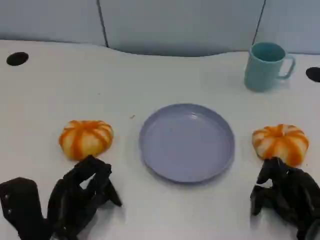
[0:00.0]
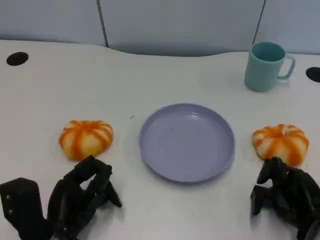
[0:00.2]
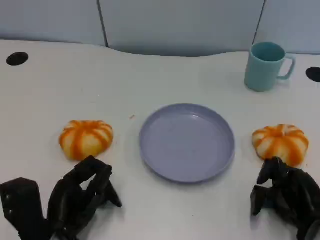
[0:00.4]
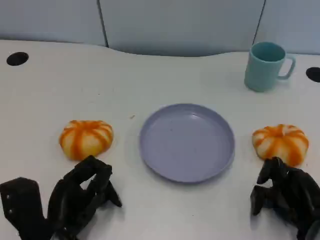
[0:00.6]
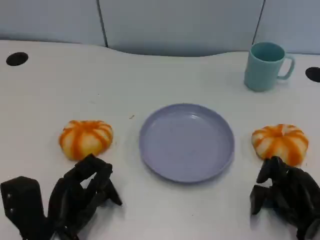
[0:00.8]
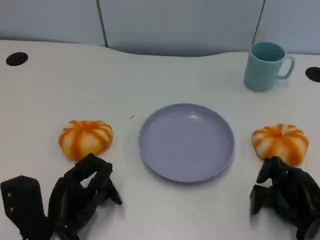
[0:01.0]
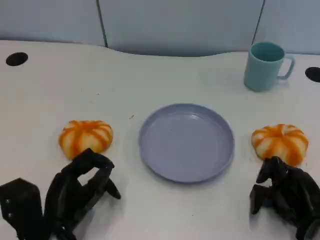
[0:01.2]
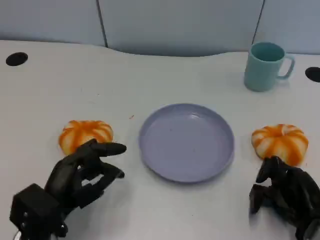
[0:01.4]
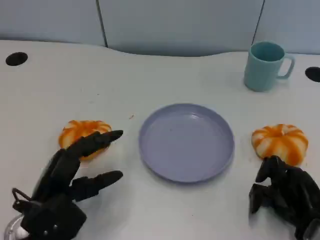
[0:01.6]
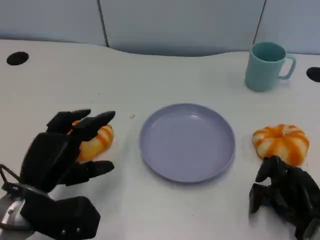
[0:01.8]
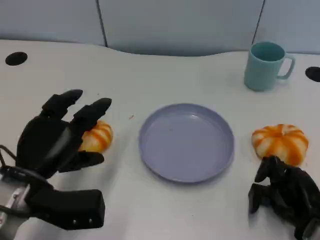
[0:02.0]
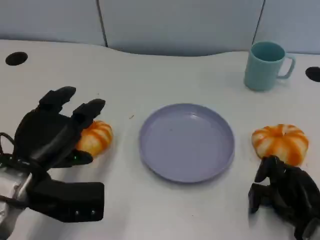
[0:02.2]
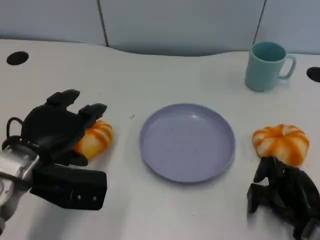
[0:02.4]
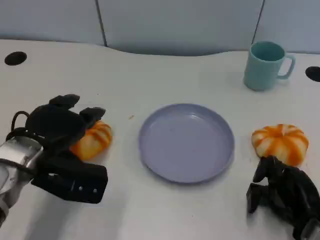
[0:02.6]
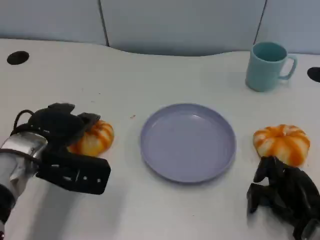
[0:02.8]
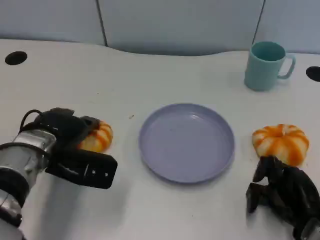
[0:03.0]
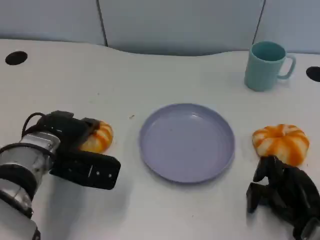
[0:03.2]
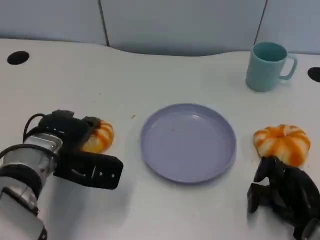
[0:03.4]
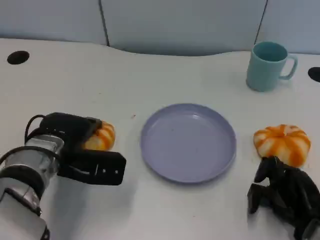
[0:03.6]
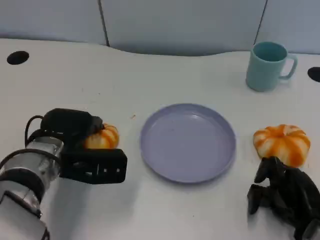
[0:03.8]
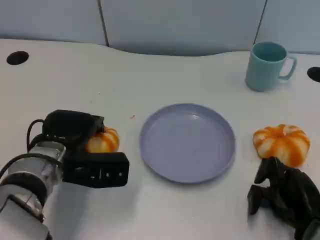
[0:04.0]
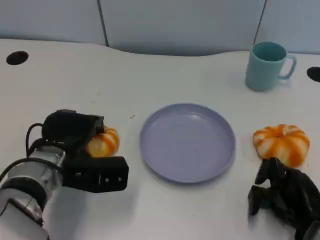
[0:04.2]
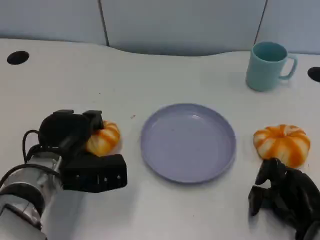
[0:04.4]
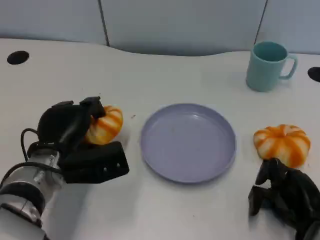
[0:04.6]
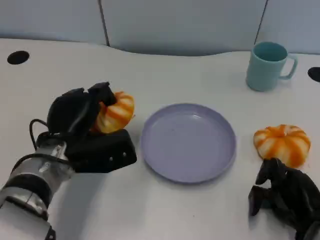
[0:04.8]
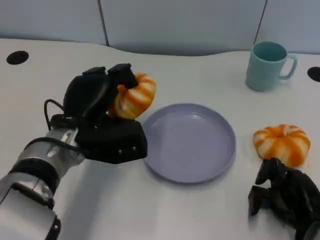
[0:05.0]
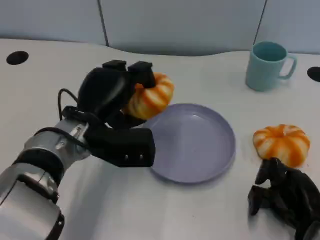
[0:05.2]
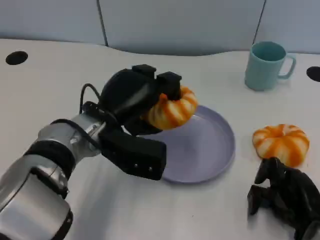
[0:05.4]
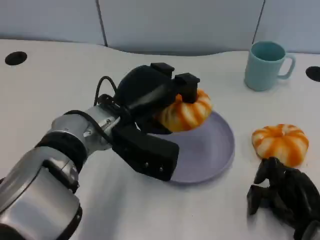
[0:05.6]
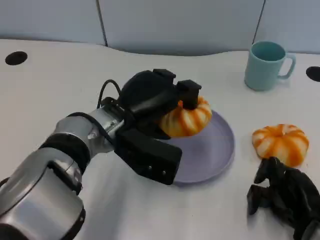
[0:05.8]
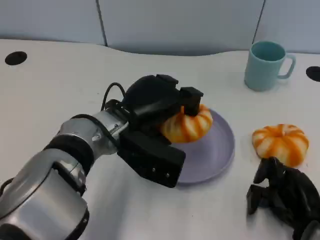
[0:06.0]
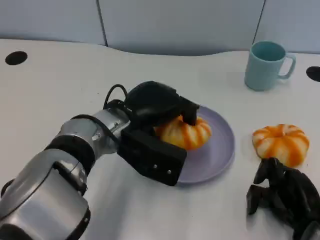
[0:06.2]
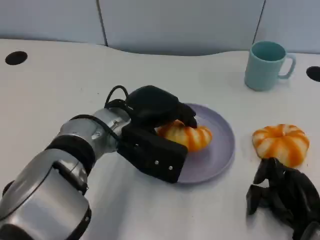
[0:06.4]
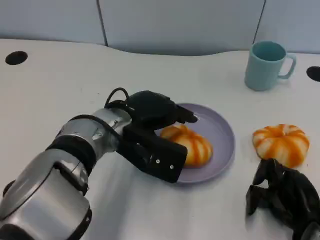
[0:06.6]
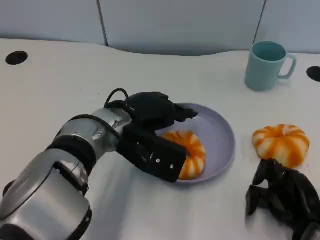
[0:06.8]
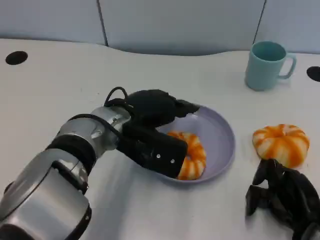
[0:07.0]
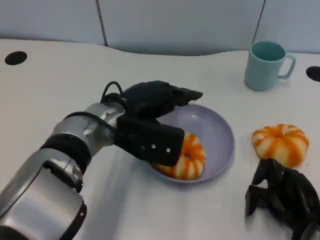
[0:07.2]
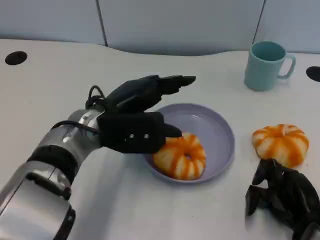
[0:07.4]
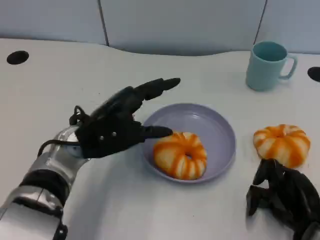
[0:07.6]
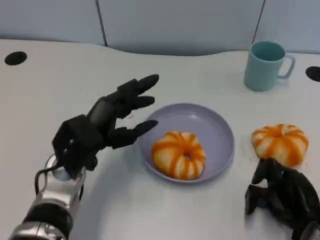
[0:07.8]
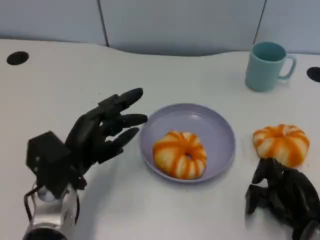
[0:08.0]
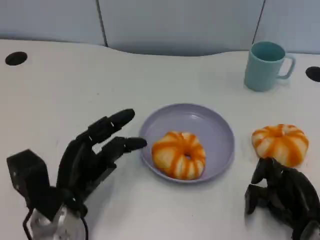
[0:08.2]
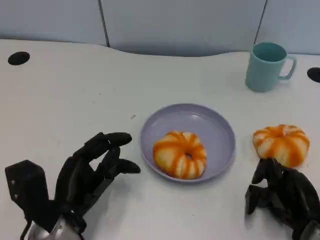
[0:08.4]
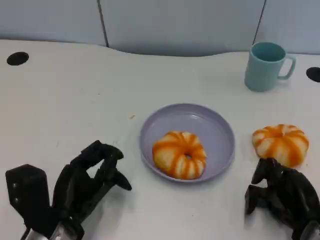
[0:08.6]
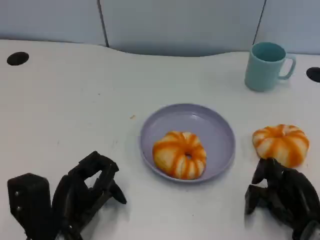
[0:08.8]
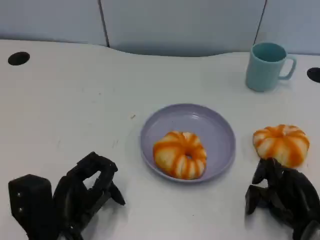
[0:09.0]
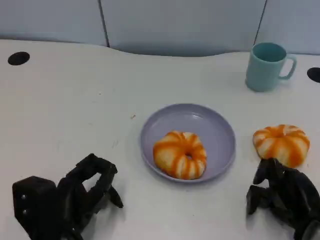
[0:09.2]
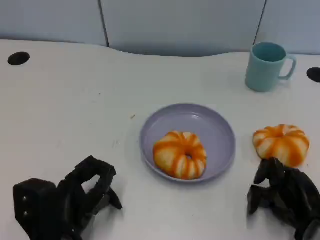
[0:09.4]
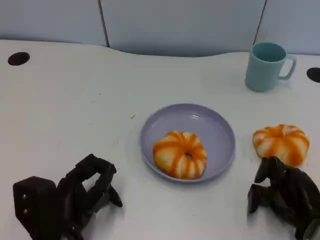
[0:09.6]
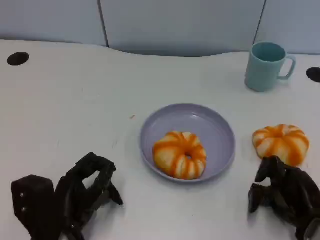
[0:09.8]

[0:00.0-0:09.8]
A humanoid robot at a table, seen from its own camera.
Task of the whole recording: Grasp the bread from the table and place it into the plate.
0:01.4 to 0:02.8: The left hand is displaced forward and upward by approximately 10 cm.
0:02.8 to 0:04.2: The hands stay close to where they were, moving slightly.
0:04.2 to 0:05.6: The left hand shifts roughly 10 cm to the right and upward.
0:07.0 to 0:08.4: The left hand travels backward, to the left and downward by approximately 15 cm.
0:08.4 to 0:09.8: The hands move only a little.

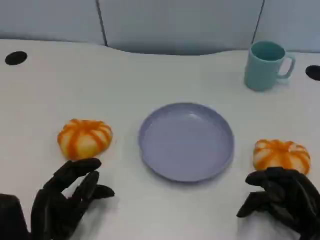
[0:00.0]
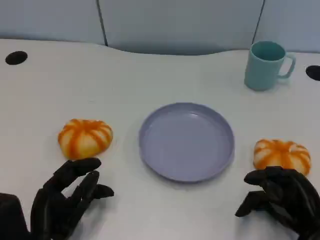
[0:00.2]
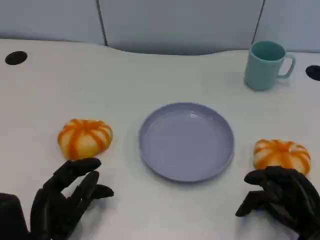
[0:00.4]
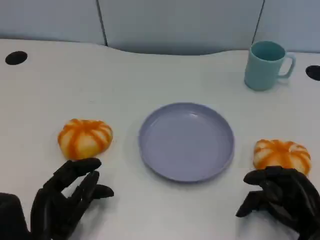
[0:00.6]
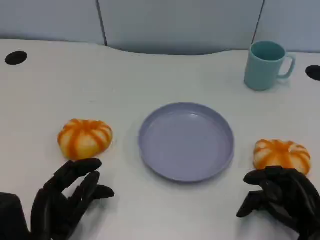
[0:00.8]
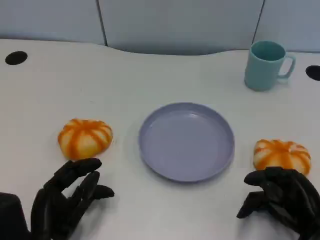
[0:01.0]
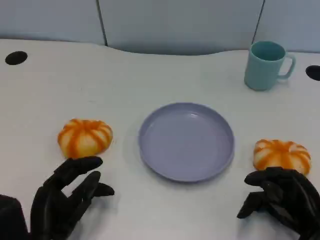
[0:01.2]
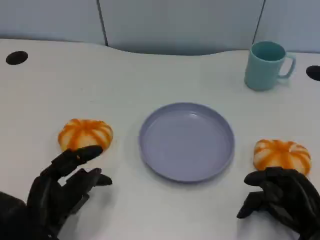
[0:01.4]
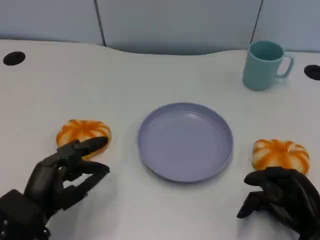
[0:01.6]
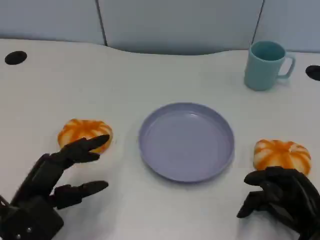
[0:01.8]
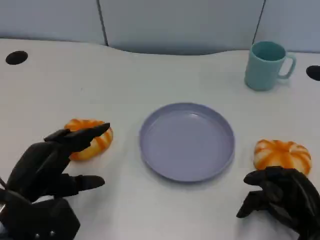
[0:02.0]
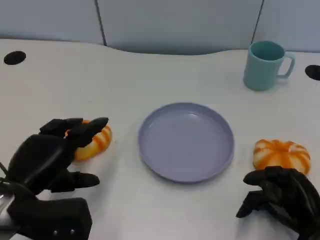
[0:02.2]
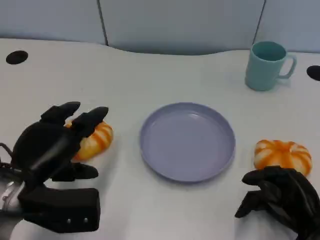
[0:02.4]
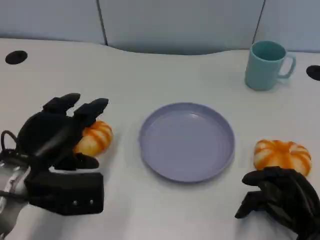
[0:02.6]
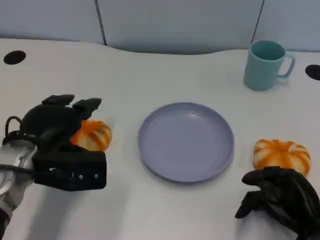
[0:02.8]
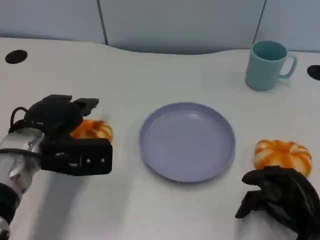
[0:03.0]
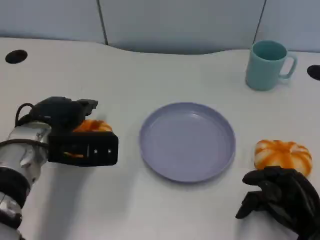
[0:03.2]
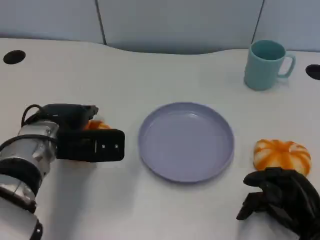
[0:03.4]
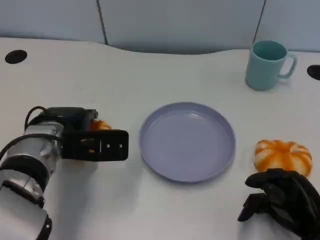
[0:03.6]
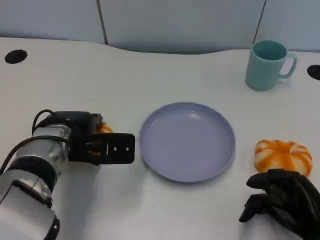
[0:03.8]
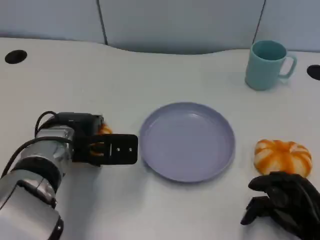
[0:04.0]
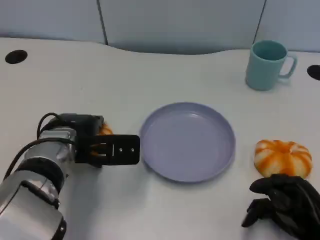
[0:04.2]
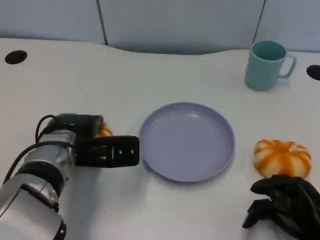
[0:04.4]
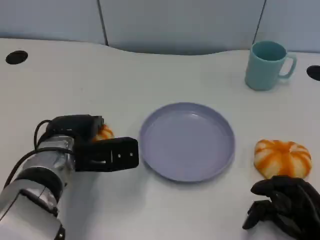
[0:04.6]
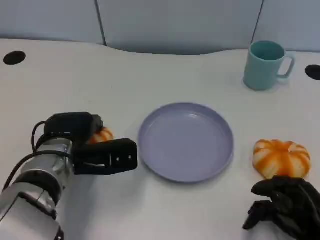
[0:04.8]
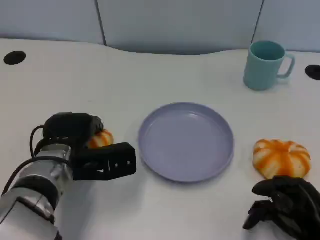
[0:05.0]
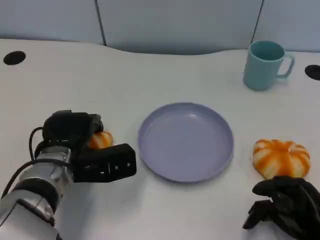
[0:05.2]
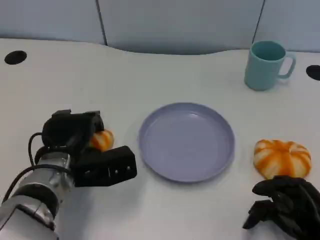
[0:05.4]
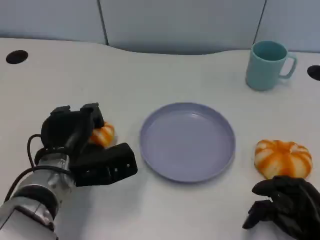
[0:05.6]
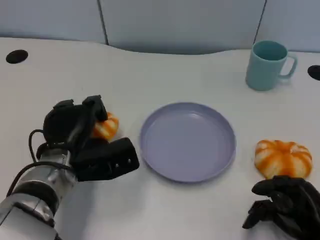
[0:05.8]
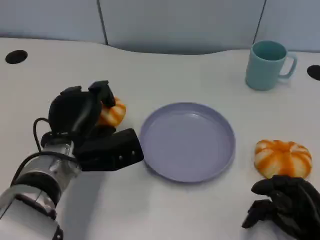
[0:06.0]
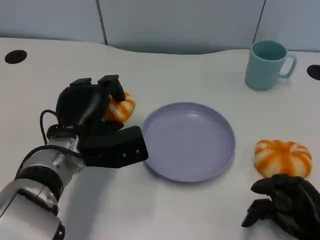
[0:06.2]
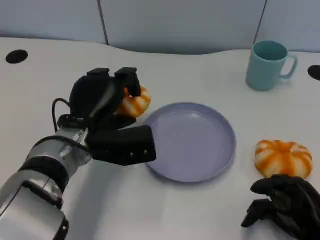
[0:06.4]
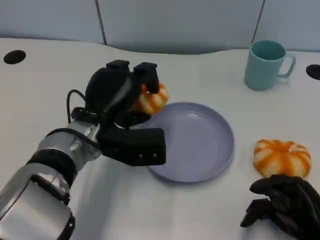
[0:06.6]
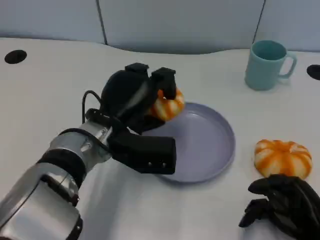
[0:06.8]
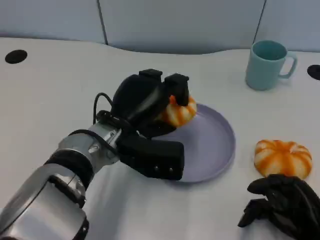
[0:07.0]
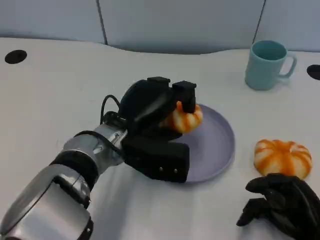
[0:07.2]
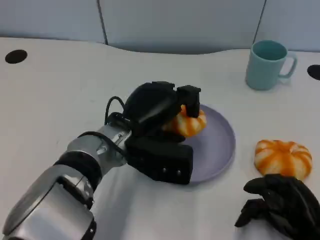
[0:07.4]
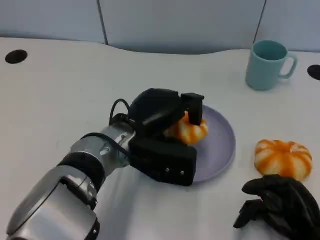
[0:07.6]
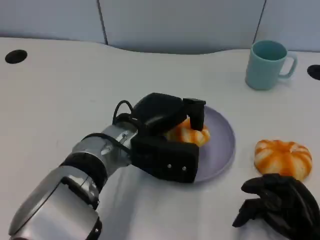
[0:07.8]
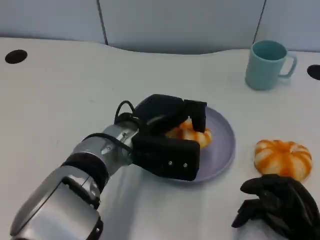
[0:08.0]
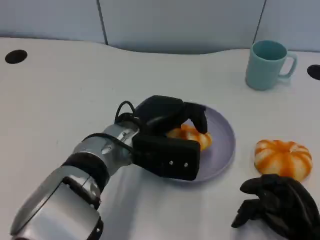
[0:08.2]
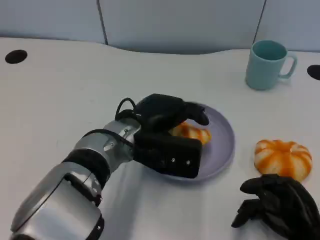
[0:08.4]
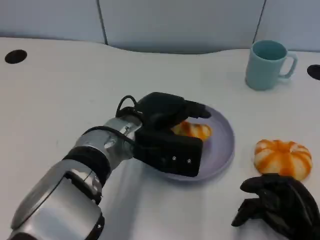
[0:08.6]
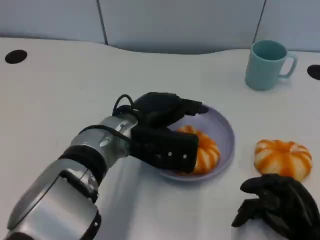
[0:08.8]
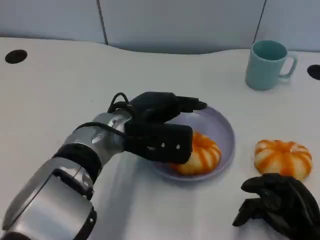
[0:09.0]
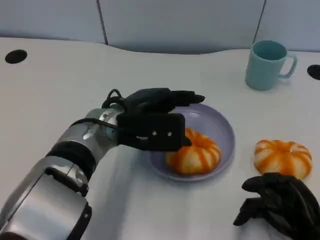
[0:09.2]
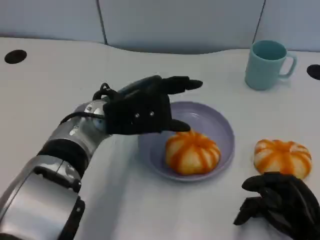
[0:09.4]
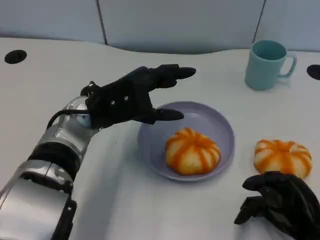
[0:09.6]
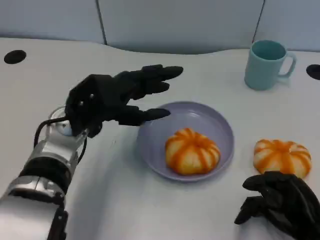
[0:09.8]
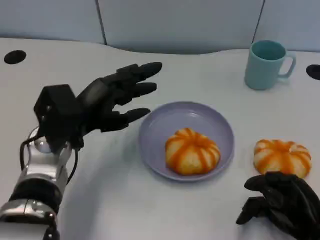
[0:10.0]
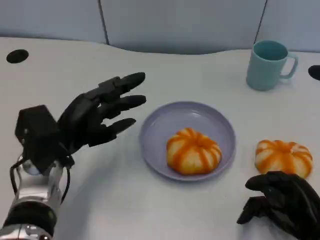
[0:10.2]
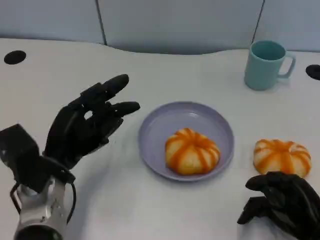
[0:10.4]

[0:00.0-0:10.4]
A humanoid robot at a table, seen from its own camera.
Task of the whole recording: Grasp the bread from the table and place it into the plate.
0:01.4 to 0:03.0: The left hand moves forward and upward, approximately 15 cm.
0:03.0 to 0:04.4: The hands stay close to where they were, moving slightly.
0:06.0 to 0:07.4: The left hand is displaced to the right by roughly 10 cm.
0:09.0 to 0:10.4: The left hand travels to the left, downward and backward by some 15 cm.

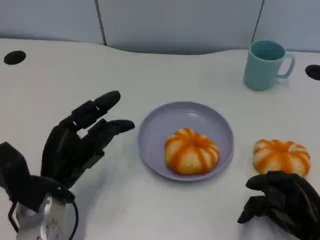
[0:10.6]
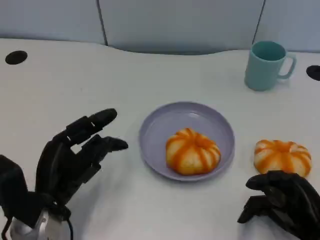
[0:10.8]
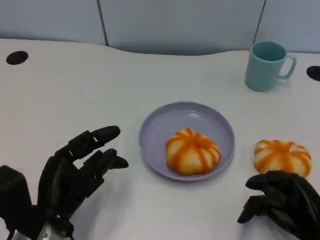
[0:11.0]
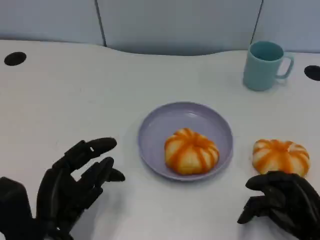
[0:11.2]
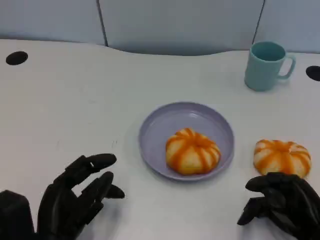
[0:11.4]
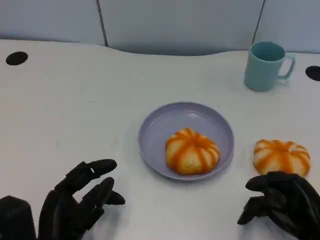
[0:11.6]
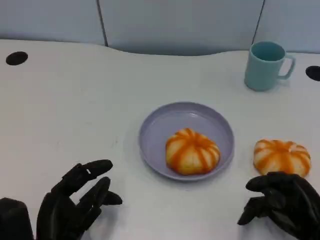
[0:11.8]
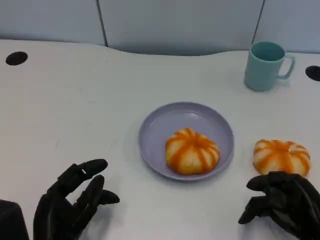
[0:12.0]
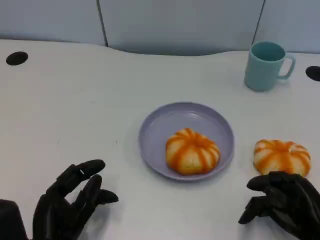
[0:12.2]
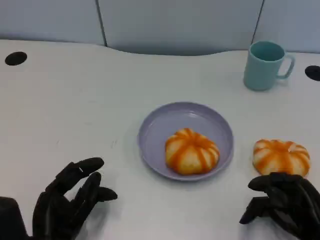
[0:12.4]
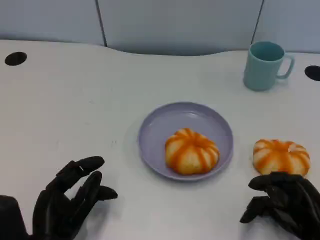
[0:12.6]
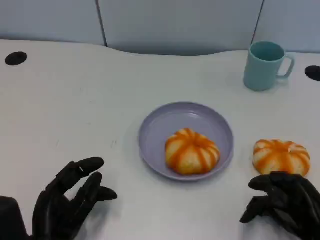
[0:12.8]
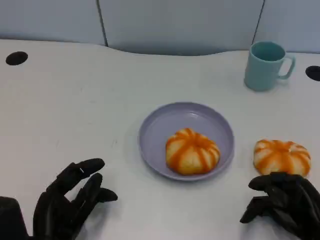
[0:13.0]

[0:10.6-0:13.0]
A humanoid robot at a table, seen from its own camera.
Task of the whole recording: Grasp the bread from the table and place it into the plate.
0:10.6 to 0:11.8: The left hand goes roughly 10 cm backward.
0:11.8 to 0:13.0: The hands move only a little.
